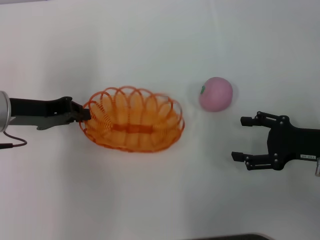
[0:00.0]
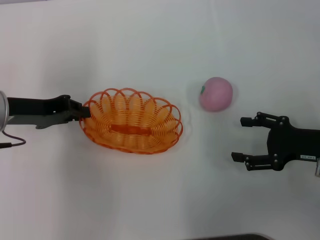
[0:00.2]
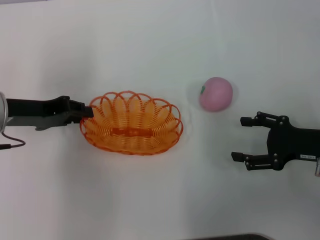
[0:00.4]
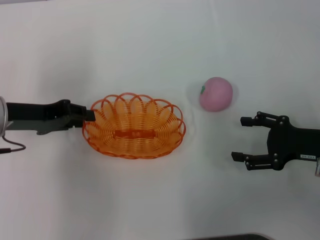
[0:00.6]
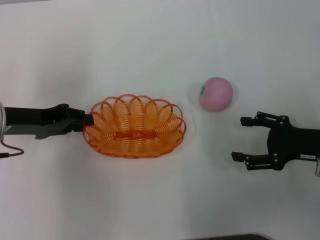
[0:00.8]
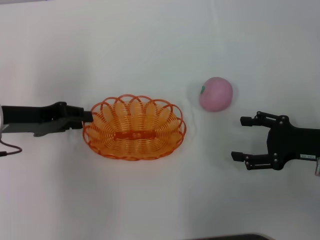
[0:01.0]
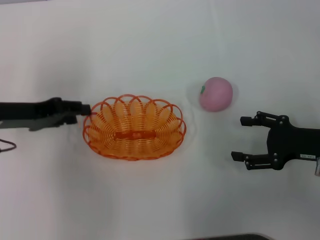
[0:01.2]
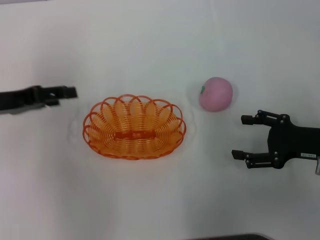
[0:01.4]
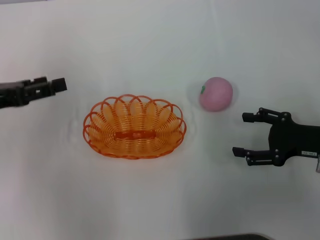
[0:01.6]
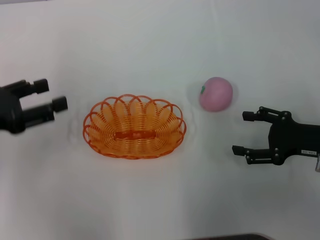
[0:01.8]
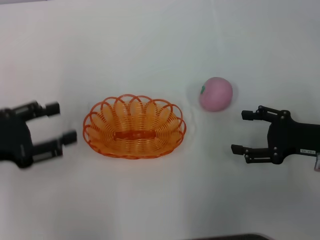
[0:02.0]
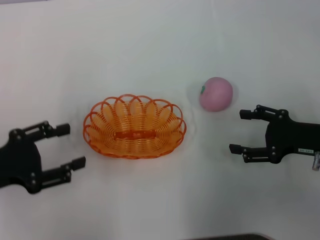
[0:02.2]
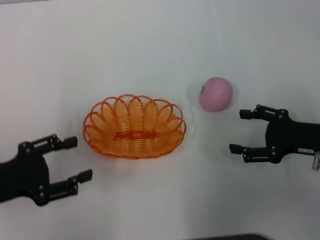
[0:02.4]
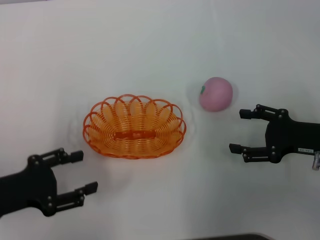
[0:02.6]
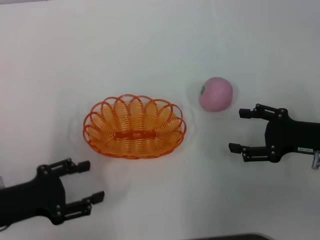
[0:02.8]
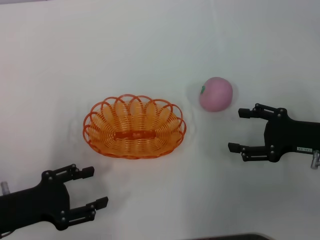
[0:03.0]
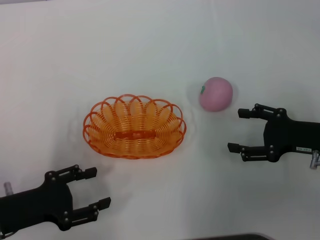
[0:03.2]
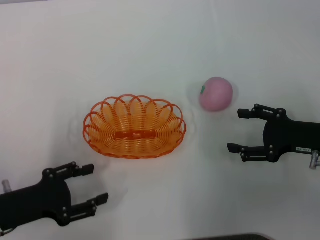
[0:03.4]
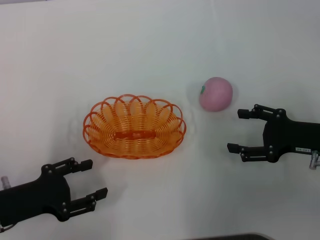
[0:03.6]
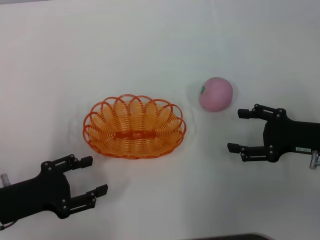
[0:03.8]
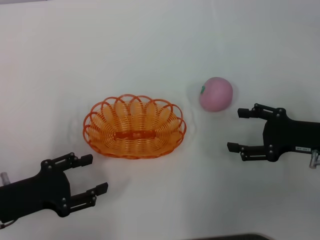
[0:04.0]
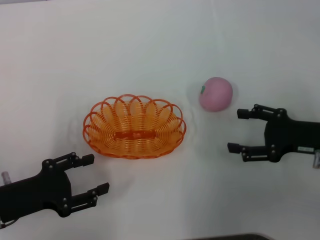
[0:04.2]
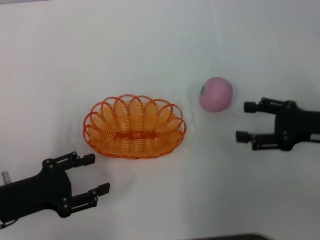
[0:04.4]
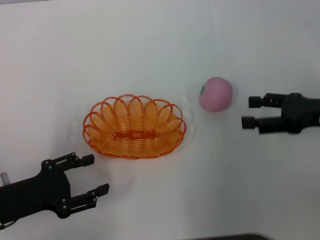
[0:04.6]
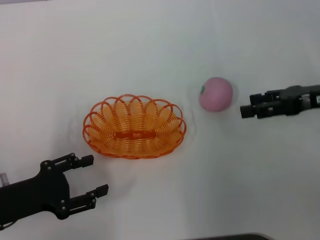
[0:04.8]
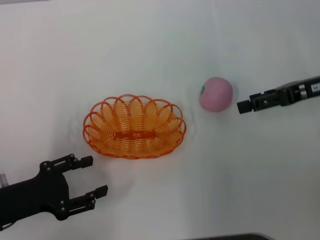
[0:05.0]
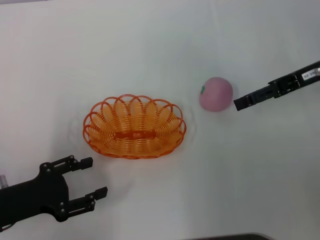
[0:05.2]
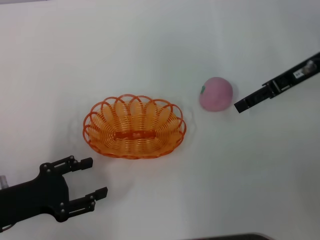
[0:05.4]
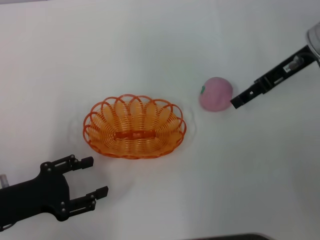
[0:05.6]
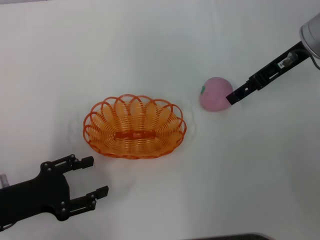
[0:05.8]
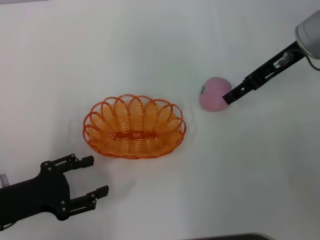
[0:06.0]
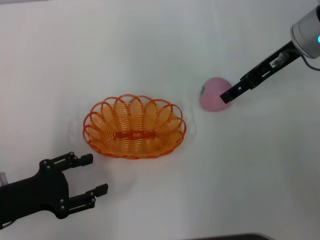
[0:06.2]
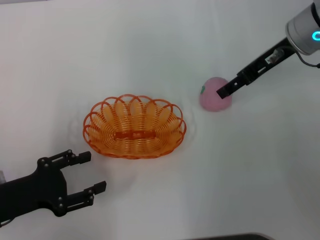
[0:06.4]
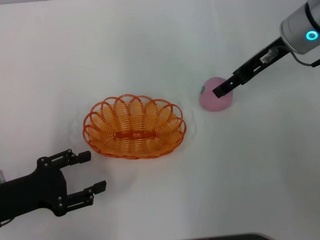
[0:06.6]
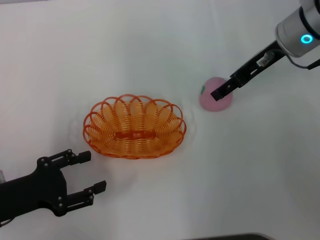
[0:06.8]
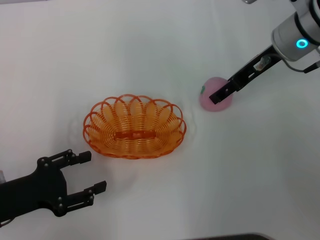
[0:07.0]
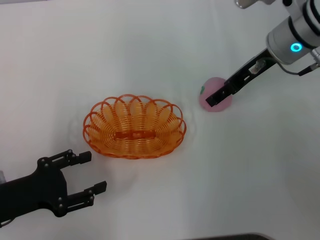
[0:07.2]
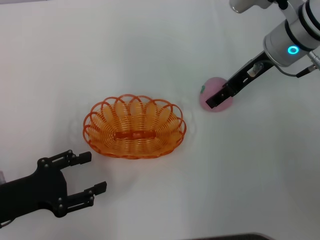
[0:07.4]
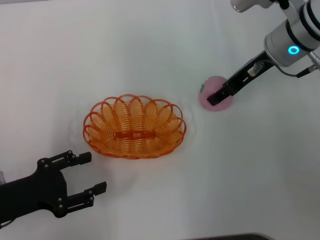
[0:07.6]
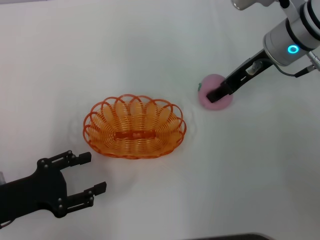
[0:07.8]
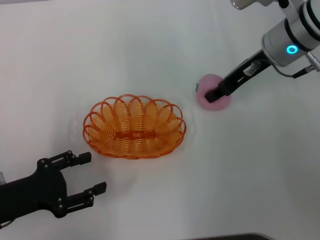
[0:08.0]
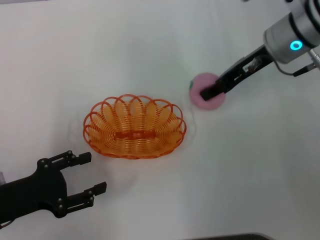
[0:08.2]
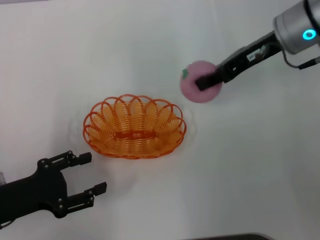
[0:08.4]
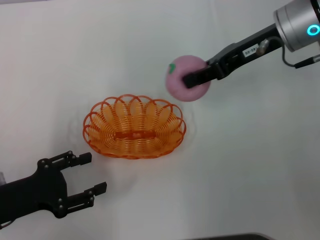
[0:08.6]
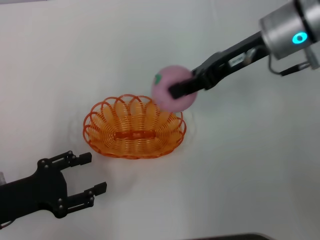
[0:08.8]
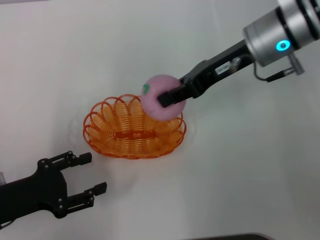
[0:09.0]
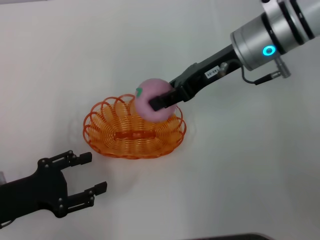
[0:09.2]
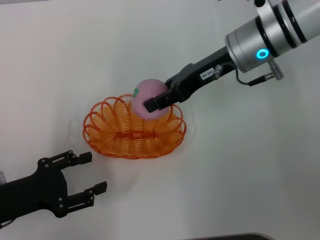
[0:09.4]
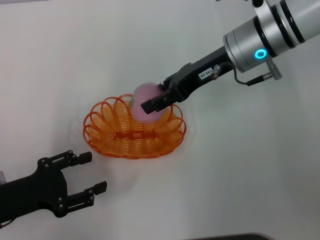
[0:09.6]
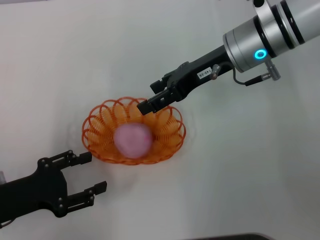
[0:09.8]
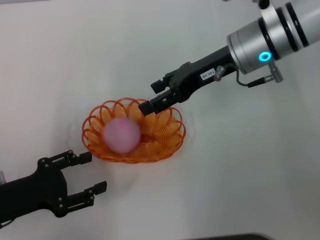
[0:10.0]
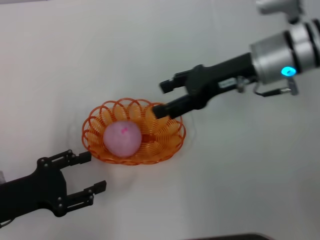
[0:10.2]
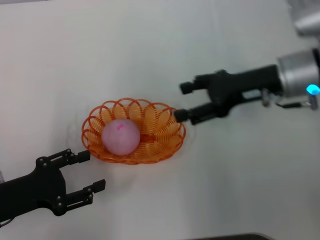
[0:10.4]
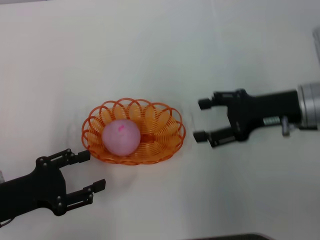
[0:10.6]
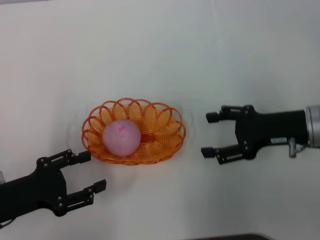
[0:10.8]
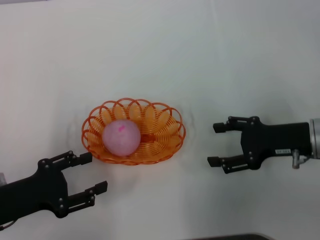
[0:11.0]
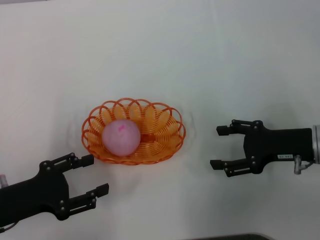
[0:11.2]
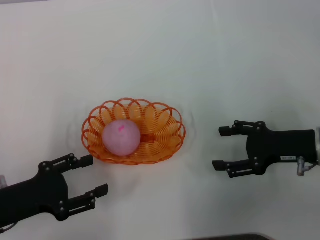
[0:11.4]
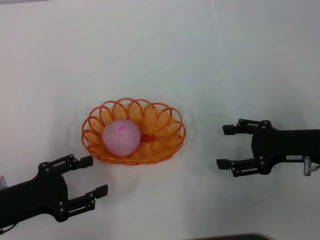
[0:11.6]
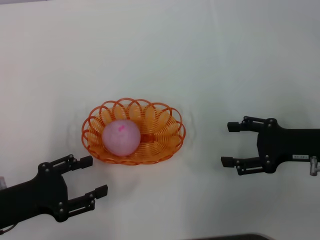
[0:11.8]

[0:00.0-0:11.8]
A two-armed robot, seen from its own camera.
Step, 0:01.8 to 0:08.6: Pick up the peach with the right gripper.
Step, 0:08.8 to 0:10.8: Place the peach into the basket with the right gripper.
0:00.0 to 0:01.4: The left gripper opens up.
0:01.4 to 0:03.0: The left gripper moves backward and downward, about 15 cm.
0:03.0 to 0:04.4: The grippers move only a little.
0:04.4 to 0:06.0: The right gripper moves forward, upward and to the left, roughly 20 cm.
0:06.0 to 0:07.4: The grippers make only small movements.
0:07.4 to 0:08.8: The right gripper changes place by roughly 5 cm, and closes.
0:08.8 to 0:10.4: The right gripper goes some 5 cm downward, and opens.
0:10.4 to 0:11.8: The right gripper heads backward, to the right and downward, covering approximately 15 cm.

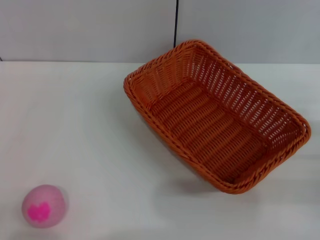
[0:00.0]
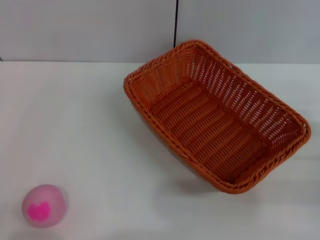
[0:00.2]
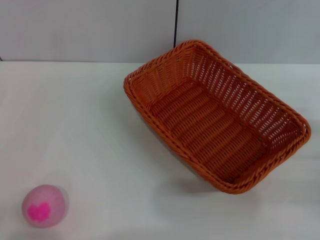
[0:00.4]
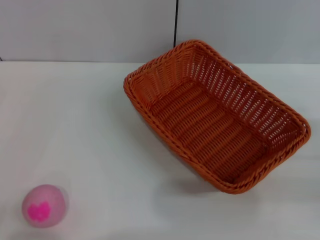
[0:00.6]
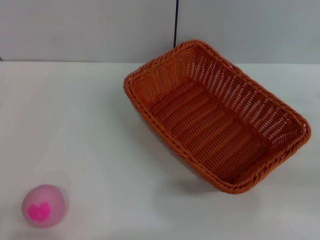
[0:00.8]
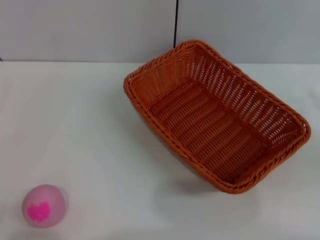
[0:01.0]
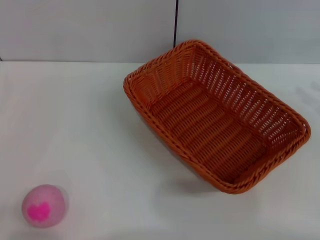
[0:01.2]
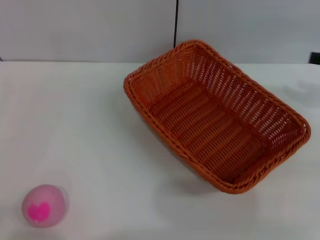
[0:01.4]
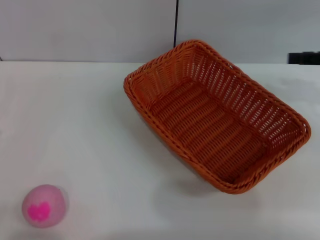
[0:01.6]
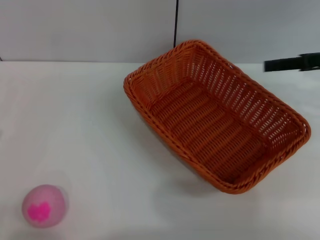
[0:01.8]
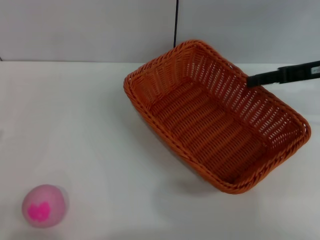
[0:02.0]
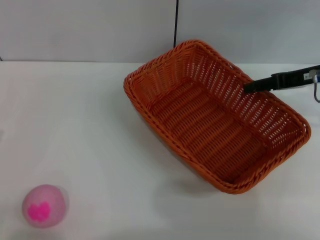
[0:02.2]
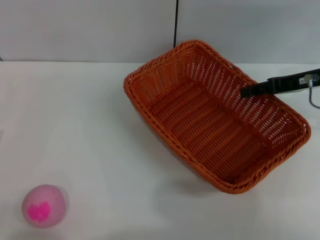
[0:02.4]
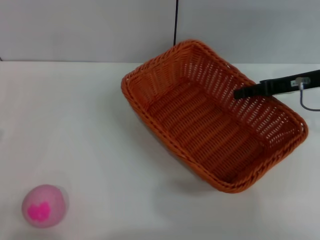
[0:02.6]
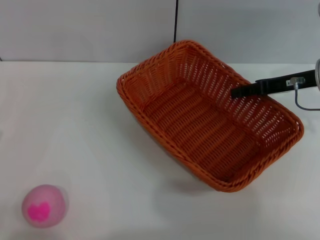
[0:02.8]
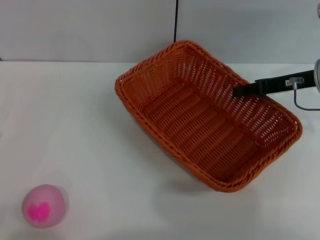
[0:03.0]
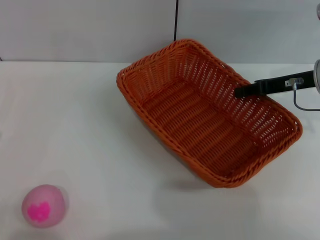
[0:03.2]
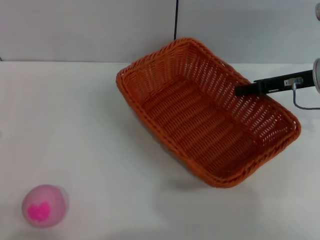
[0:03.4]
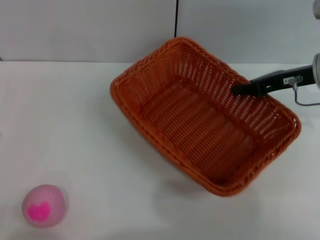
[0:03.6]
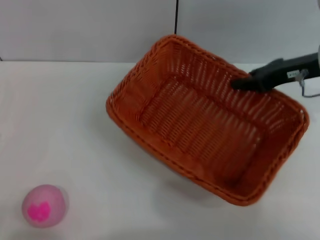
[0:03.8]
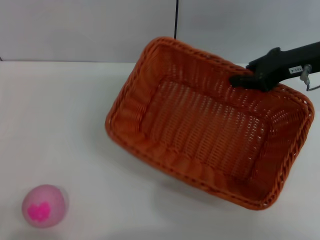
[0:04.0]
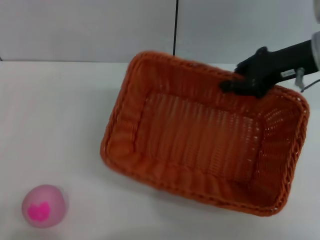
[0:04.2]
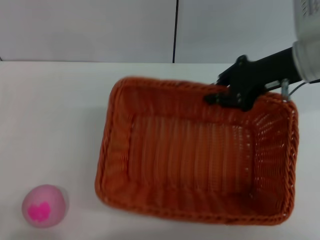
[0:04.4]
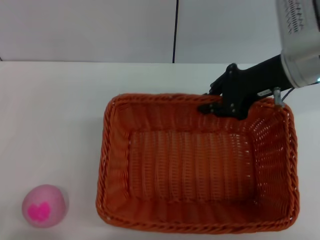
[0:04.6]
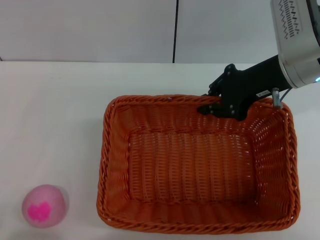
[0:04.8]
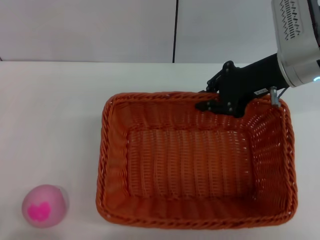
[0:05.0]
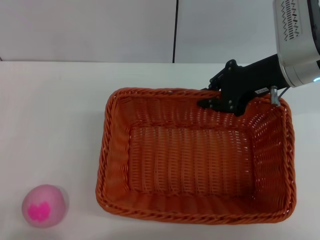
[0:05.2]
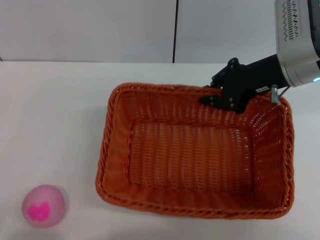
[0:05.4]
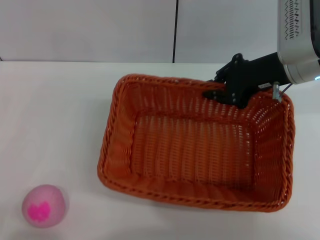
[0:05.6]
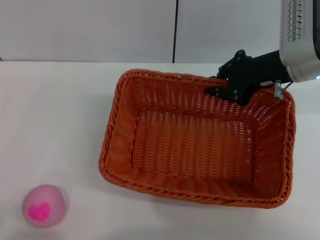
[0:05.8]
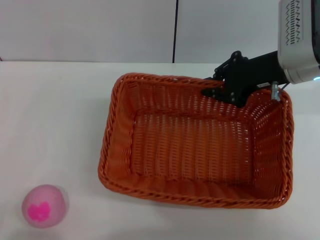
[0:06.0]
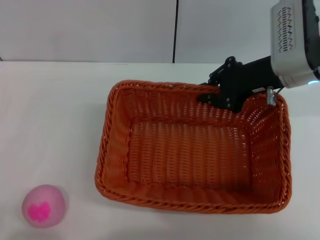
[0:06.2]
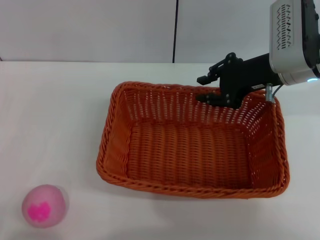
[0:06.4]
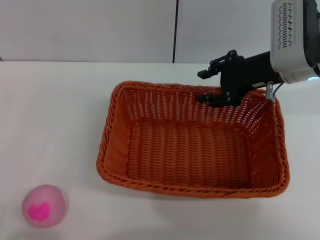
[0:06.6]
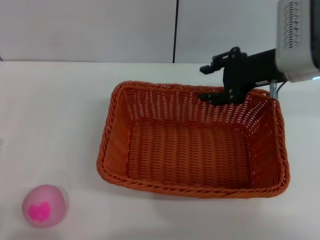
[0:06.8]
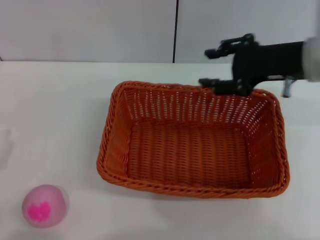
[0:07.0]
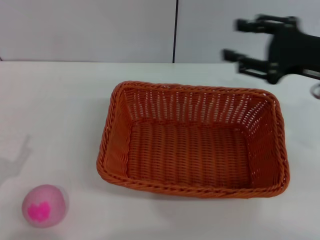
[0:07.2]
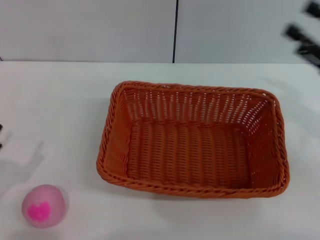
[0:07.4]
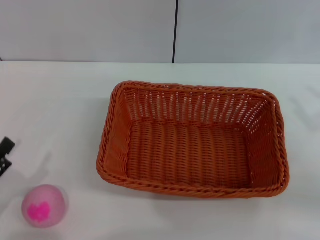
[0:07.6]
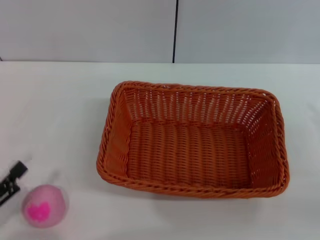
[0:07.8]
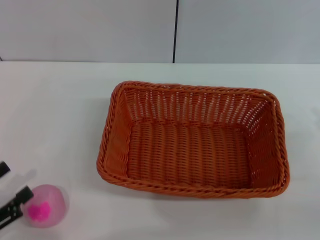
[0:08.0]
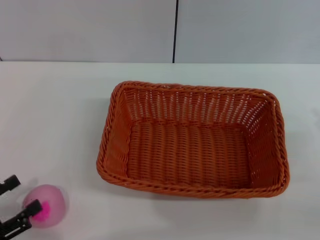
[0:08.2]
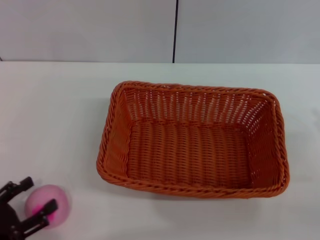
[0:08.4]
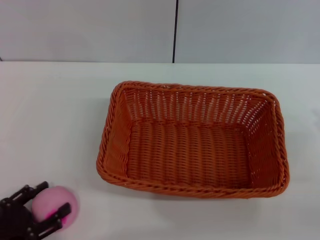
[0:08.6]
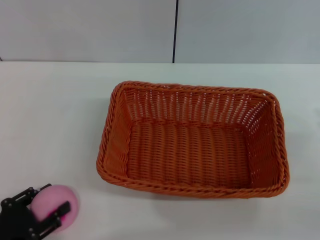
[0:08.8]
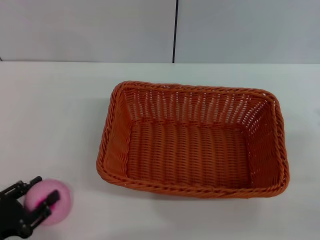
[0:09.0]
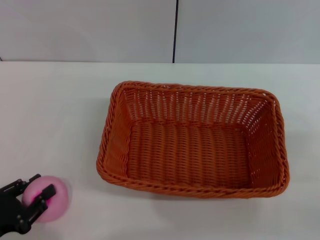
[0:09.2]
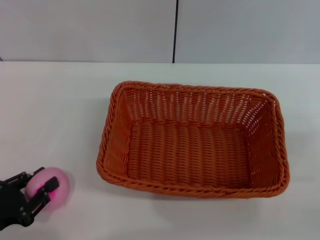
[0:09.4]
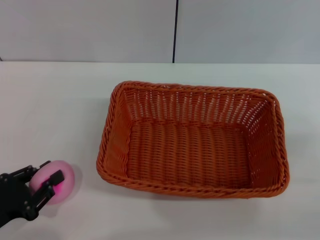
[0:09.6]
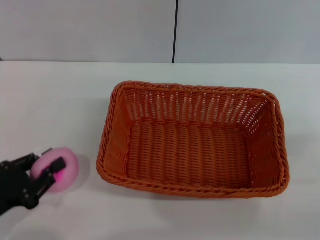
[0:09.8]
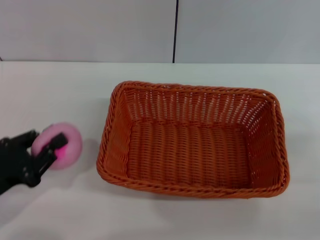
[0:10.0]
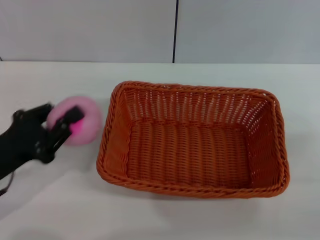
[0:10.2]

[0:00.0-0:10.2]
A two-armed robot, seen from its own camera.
Step, 0:00.0 to 0:03.6: Pick up the light basket with the right gripper.
Step, 0:03.8 to 0:06.8: Place the light basket in the center of view with the right gripper.
Step, 0:07.2 to 0:09.8: Pick up the peach with the left gripper.
0:01.4 to 0:03.0: The right gripper heads to the left and forward, covering some 15 cm.
0:03.0 to 0:04.4: The right gripper goes roughly 10 cm to the left and upward, and closes.
0:04.4 to 0:05.8: There are only small adjustments of the grippers.
0:05.8 to 0:07.2: The right gripper is displaced backward and to the right by some 10 cm, and opens.
0:07.2 to 0:08.8: The right gripper moves backward, to the right and downward, about 20 cm.
0:08.8 to 0:10.2: The left gripper is displaced forward and upward by about 10 cm, and closes up.
